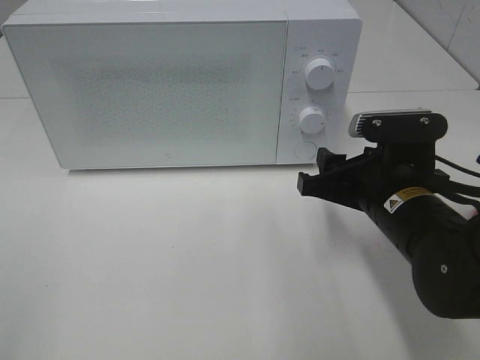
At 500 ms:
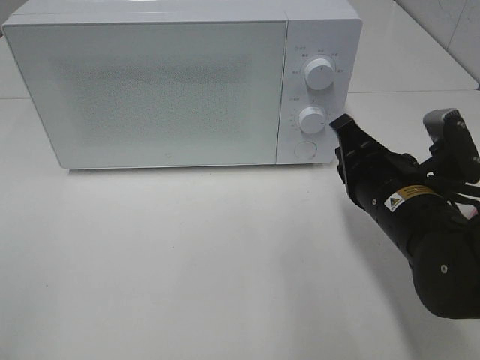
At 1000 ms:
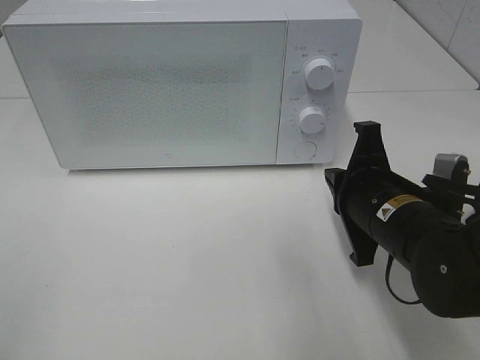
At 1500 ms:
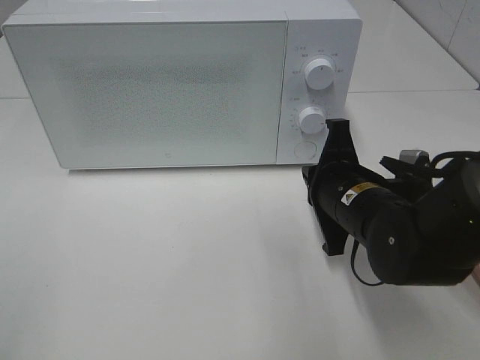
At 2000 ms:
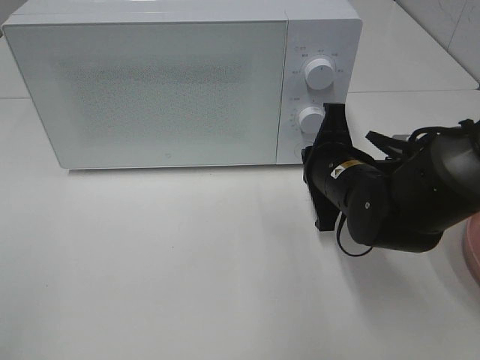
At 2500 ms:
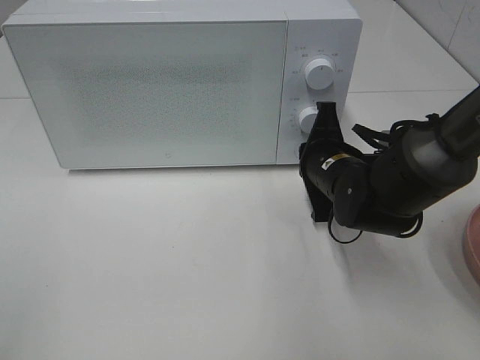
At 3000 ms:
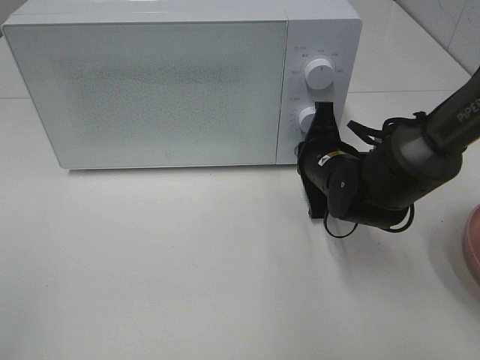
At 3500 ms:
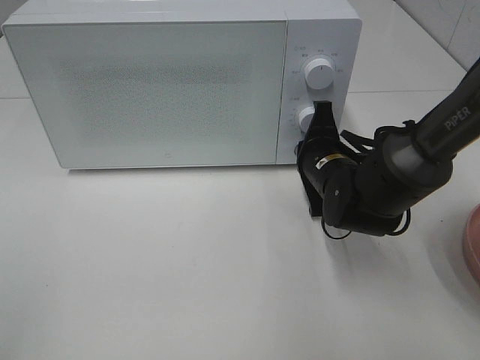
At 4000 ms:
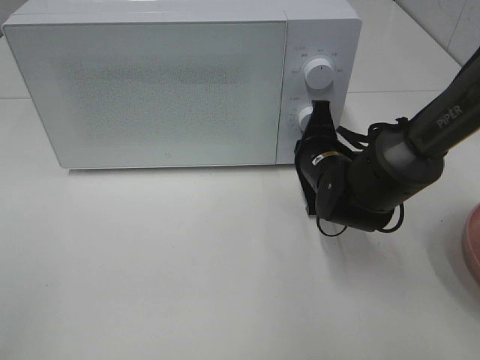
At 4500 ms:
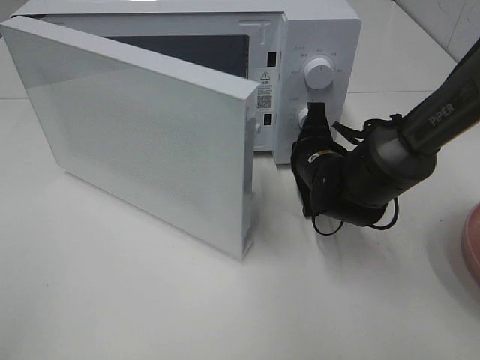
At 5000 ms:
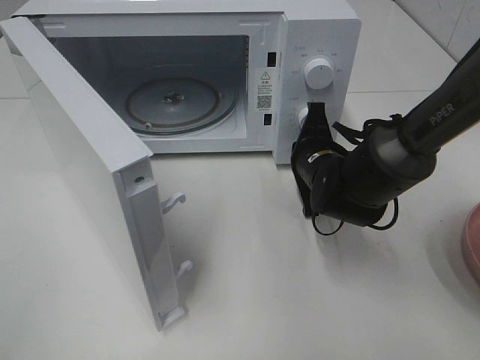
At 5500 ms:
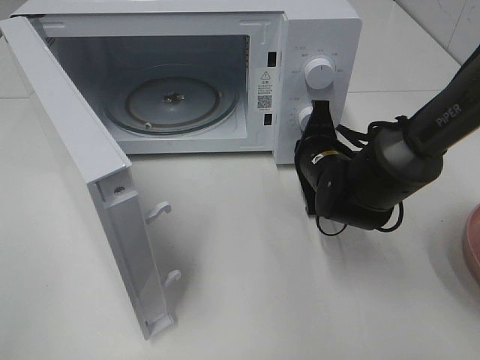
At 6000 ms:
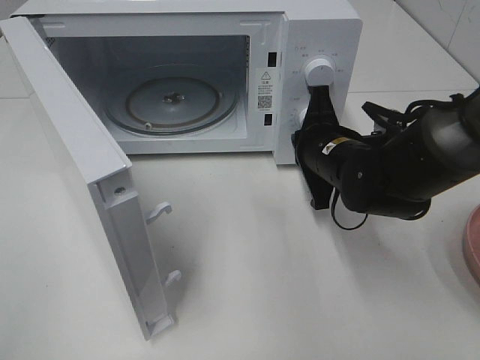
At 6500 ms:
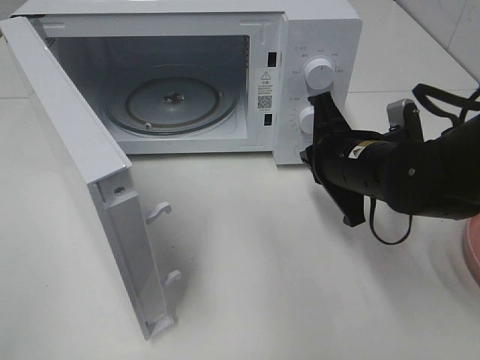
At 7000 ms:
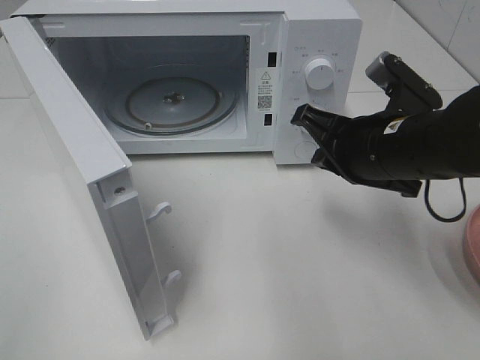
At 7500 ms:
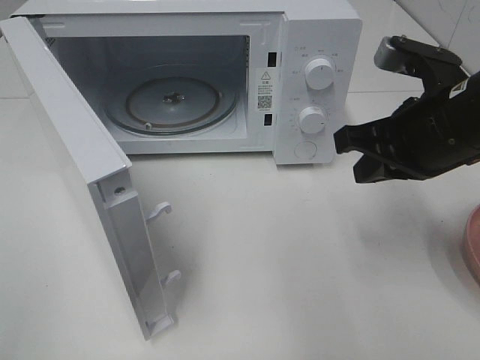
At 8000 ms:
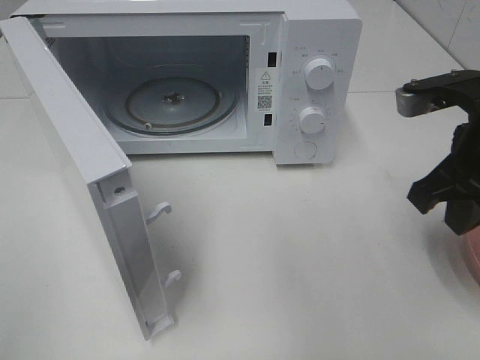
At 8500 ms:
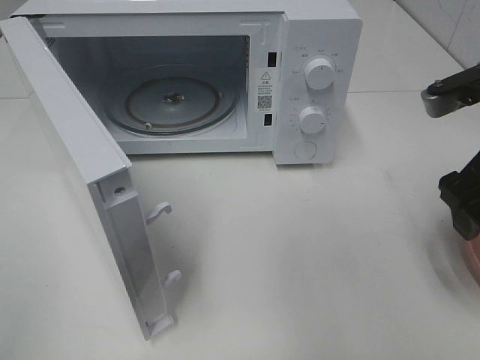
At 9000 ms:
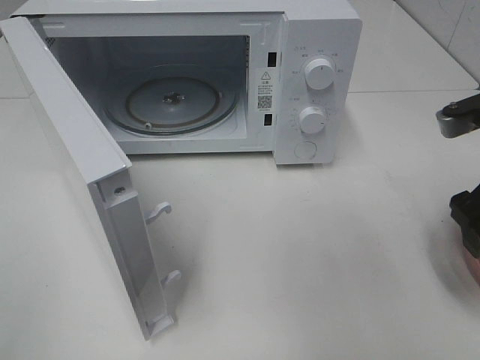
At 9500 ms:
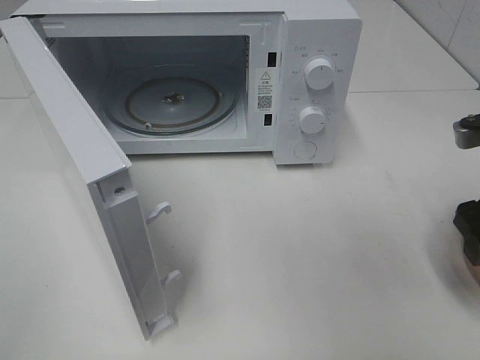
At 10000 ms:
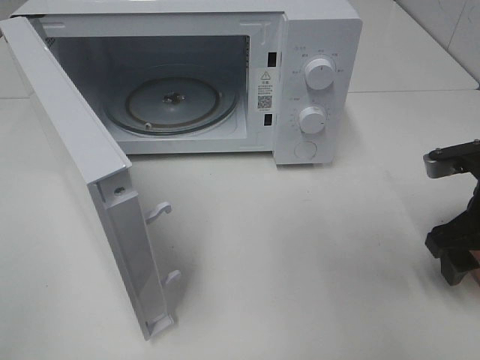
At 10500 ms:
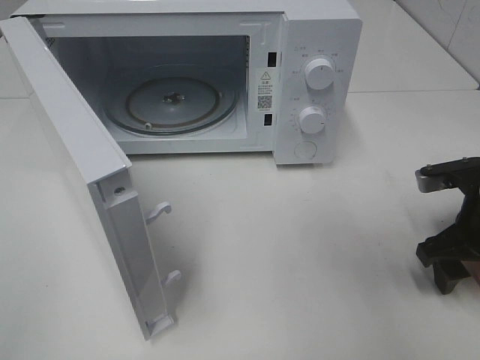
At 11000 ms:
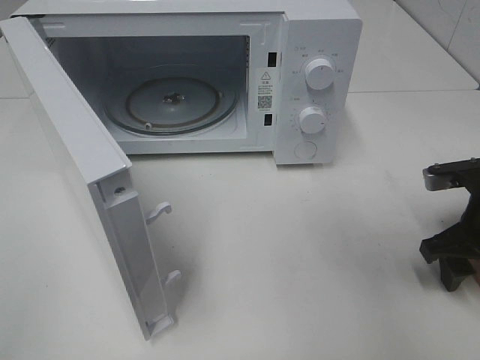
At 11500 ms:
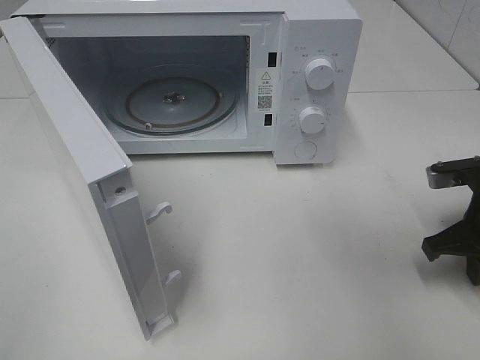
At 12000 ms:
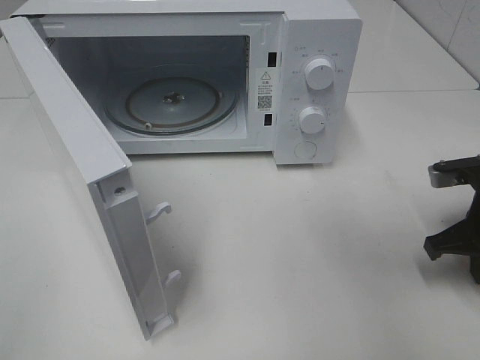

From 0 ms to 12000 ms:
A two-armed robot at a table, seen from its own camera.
Task of the whole recording: Heat the burger.
Step, from 0 ms to 5500 ms: Right hand: press the switch.
Step, from 6000 ms to 11500 ms: Right hand: grab the plate with the hamburger.
From 0 ms to 2000 ms: The right gripper goes some 5 cm forward, and closes its fingers.
From 2000 ms to 4000 ms: The right gripper shifts approximately 5 cm forward.
From 6000 ms to 8000 ms: The right gripper is displaced upward, to the right and backward by about 20 cm.
From 8000 ms to 10000 ms: The right gripper is displaced downward and to the right by approximately 10 cm, and opens.
From 10000 ms to 12000 ms: The right gripper closes up.

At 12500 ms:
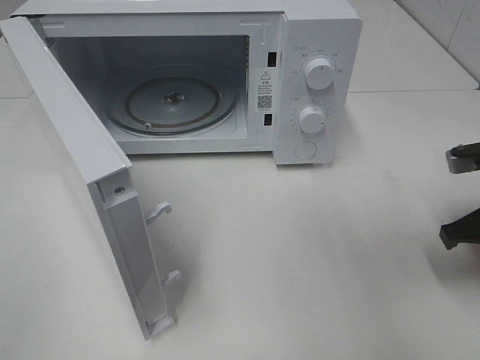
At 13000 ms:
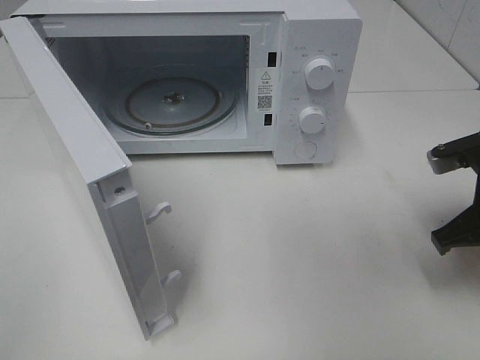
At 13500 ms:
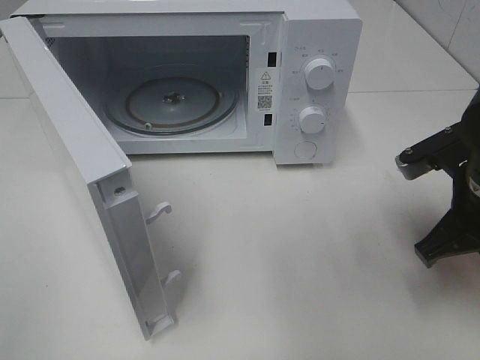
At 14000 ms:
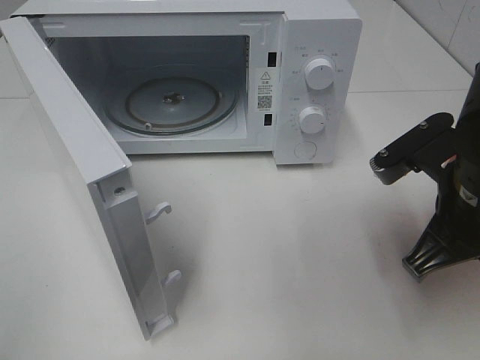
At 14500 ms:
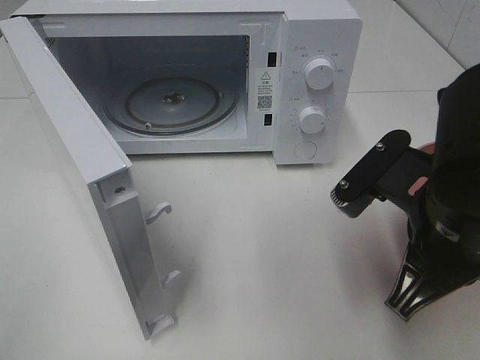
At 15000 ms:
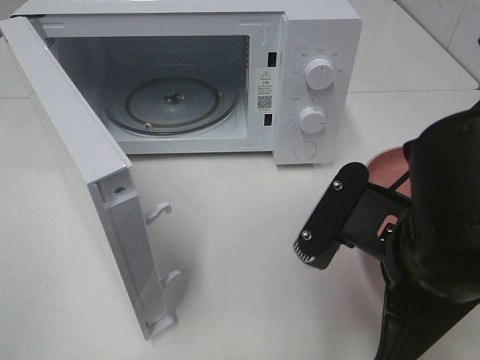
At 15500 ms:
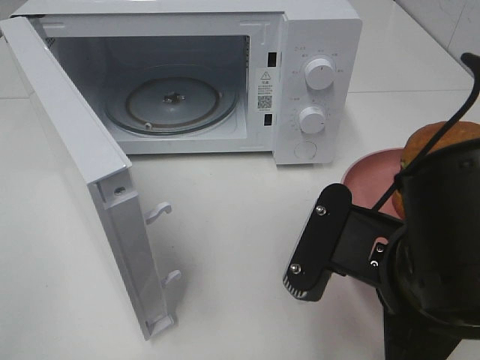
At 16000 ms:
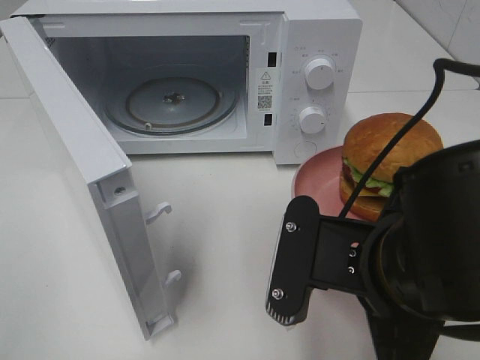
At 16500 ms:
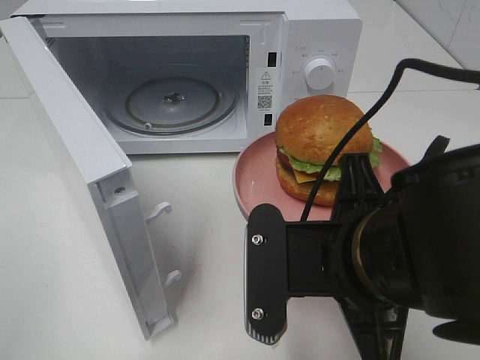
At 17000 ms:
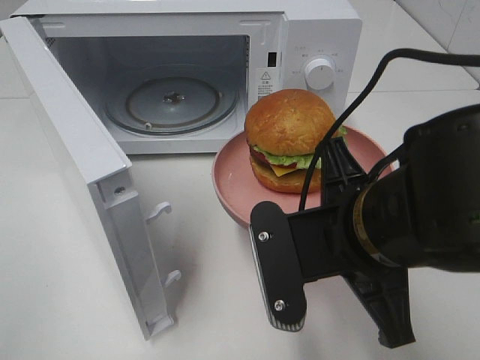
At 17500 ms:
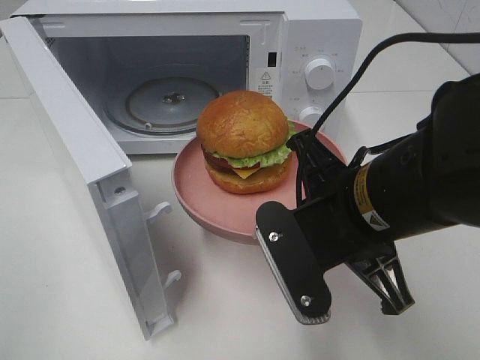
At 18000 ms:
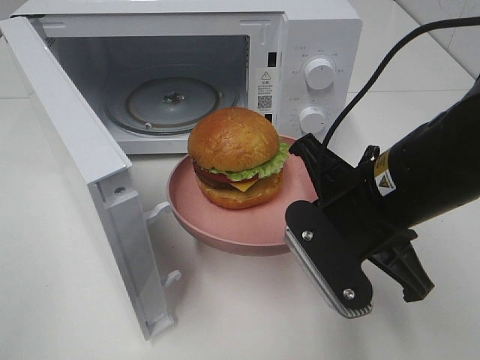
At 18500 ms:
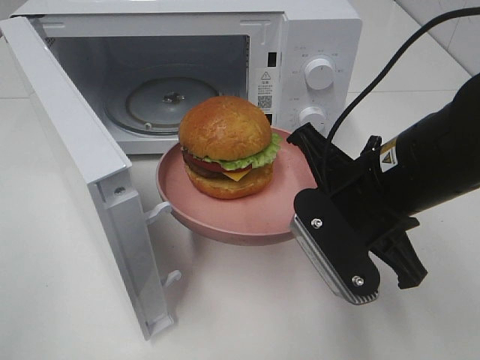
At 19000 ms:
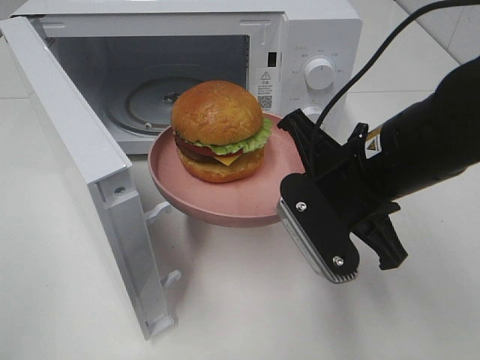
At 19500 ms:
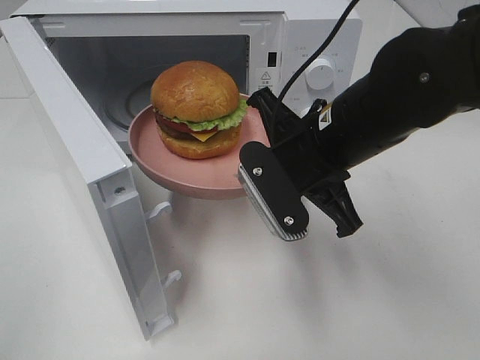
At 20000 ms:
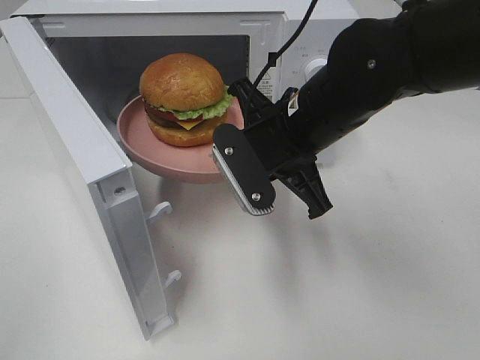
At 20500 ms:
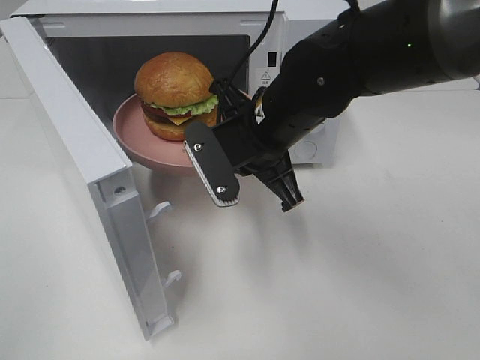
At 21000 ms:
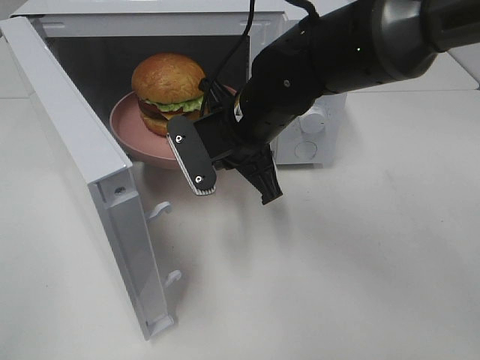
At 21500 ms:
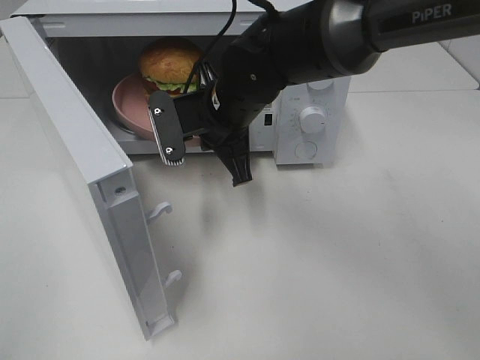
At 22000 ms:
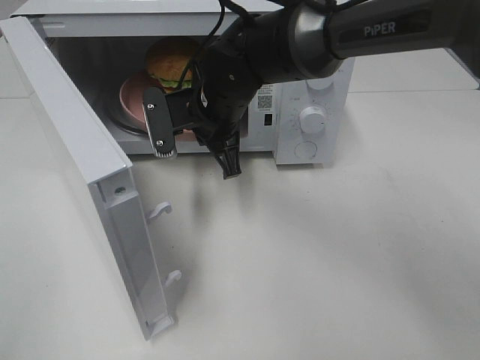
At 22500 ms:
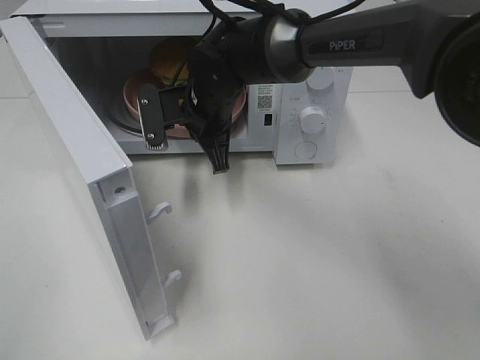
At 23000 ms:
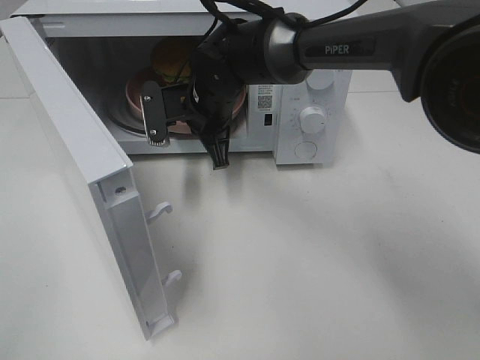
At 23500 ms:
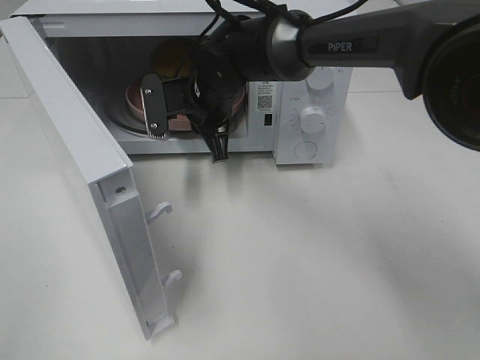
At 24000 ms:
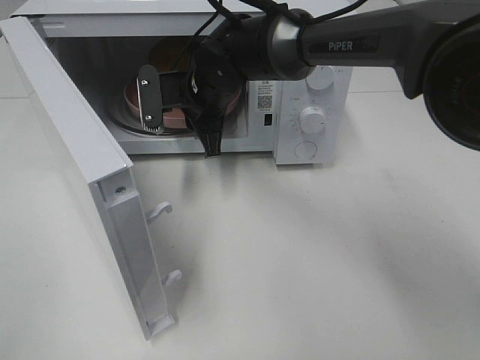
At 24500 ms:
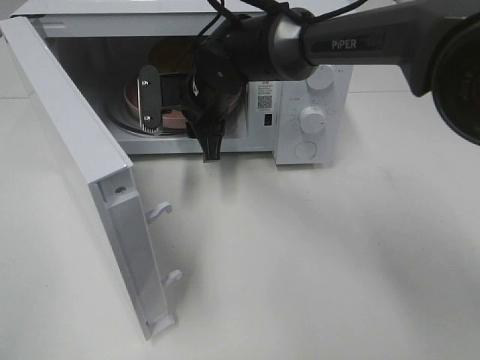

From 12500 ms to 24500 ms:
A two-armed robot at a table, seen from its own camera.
Task of the whole recording: Heat the burger.
Step, from 12500 ms to 23000 ms: Right hand: place the plate in the microwave.
From 12500 ms to 14500 ms: The right gripper shifts approximately 15 cm to the left and backward.
From 14500 ms to 16500 ms: The right gripper heads to the left, covering roughly 5 cm.
From 16500 ms to 18500 ms: The right gripper goes some 10 cm forward.
From 18500 ms to 20500 ms: The right gripper shifts some 15 cm forward and to the left.
From 20500 ms to 22500 ms: The right gripper moves forward and to the left, roughly 10 cm.
From 22500 ms to 24500 ms: The right gripper opens up.

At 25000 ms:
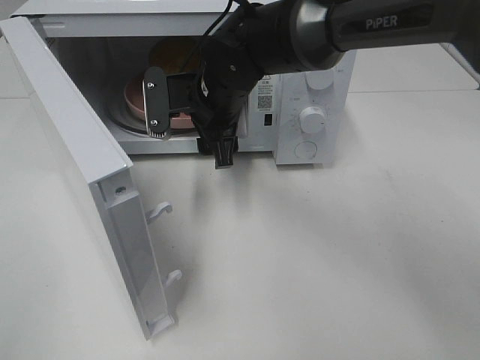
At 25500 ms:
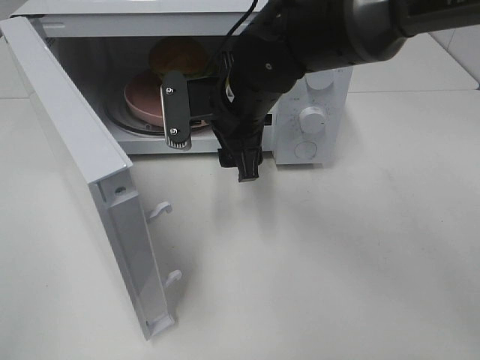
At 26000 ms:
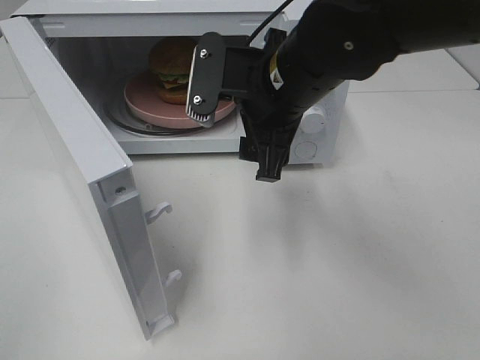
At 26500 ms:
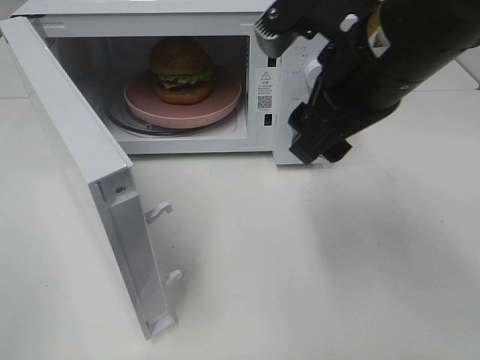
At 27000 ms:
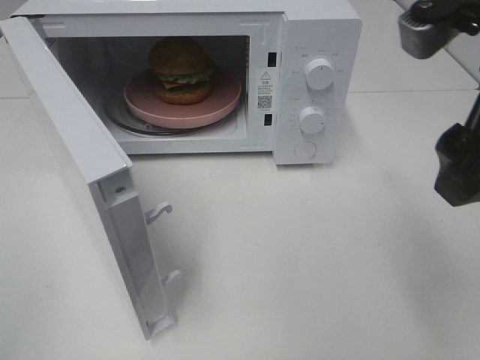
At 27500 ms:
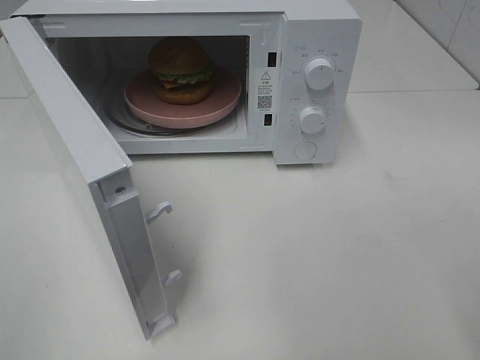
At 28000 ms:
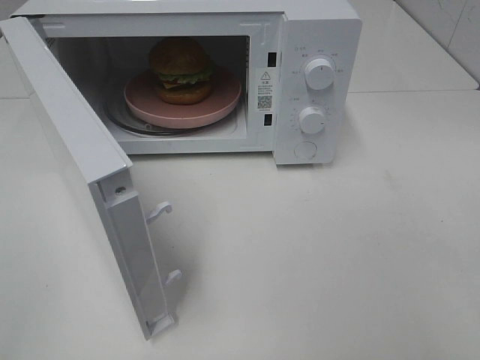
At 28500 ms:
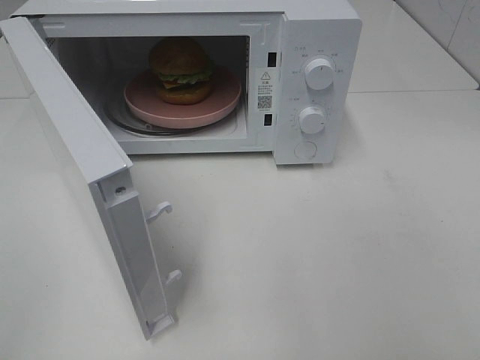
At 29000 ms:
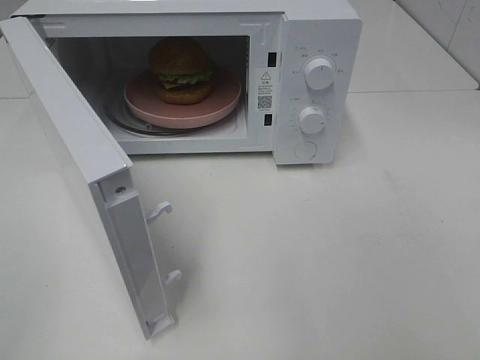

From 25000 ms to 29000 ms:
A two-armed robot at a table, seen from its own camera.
Task of the whole recording: Heat the burger.
From 25000 ms to 27000 ms: The right gripper travels backward, to the right and upward by approximately 35 cm.
From 27000 ms to 29000 ms: The right gripper travels backward and to the right by some 20 cm.
